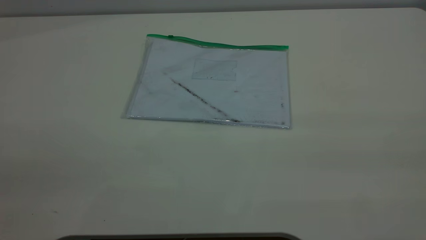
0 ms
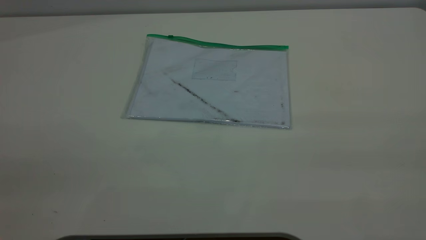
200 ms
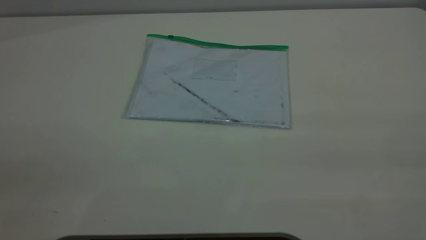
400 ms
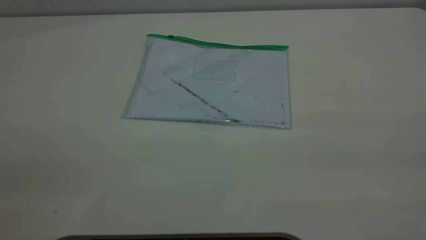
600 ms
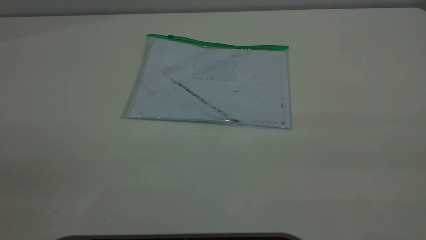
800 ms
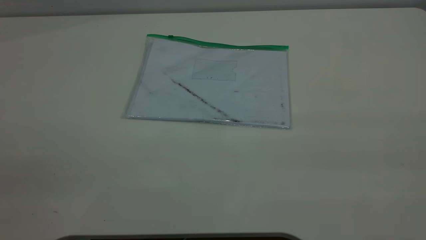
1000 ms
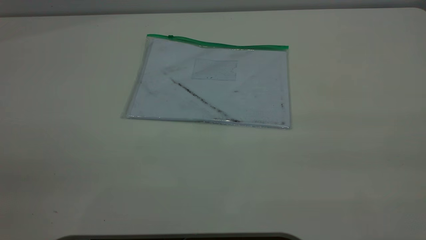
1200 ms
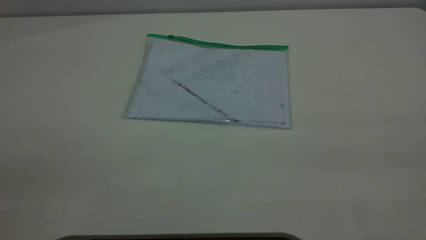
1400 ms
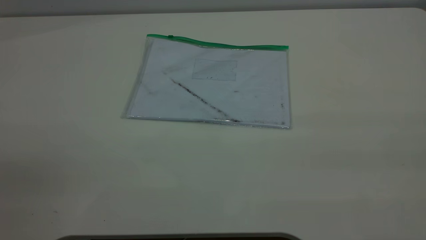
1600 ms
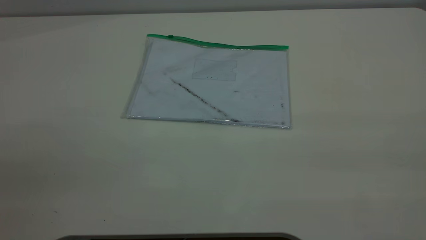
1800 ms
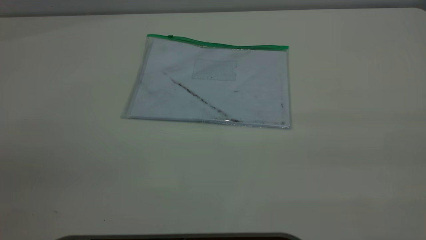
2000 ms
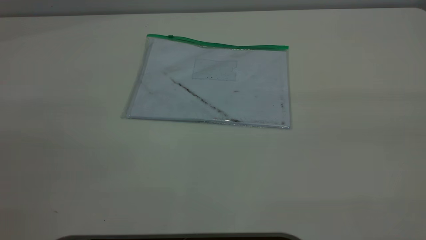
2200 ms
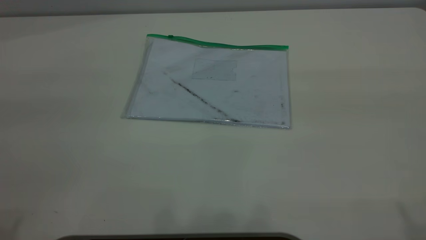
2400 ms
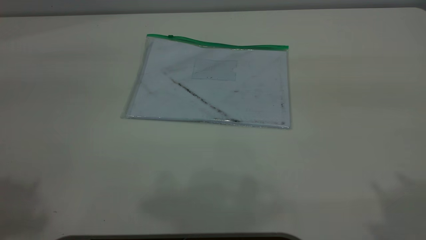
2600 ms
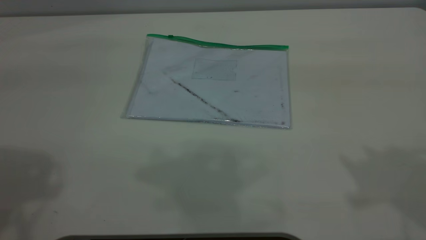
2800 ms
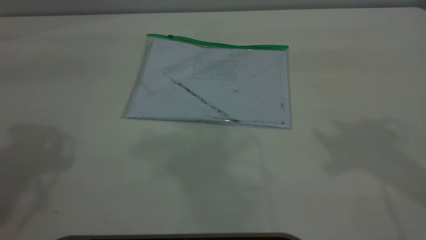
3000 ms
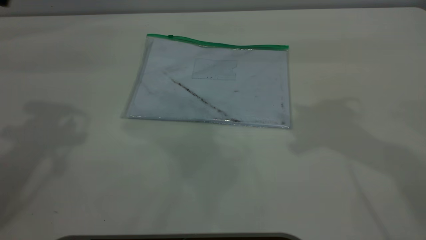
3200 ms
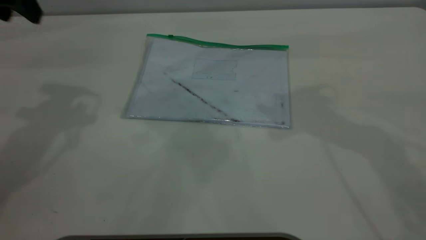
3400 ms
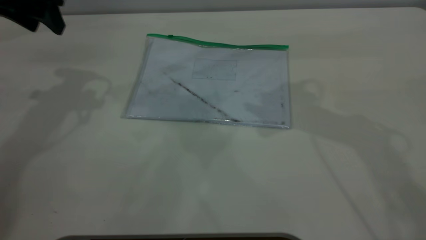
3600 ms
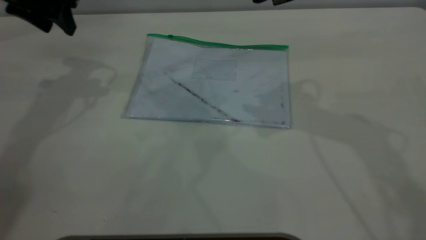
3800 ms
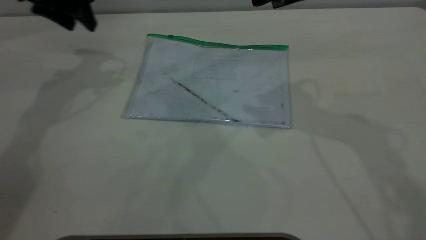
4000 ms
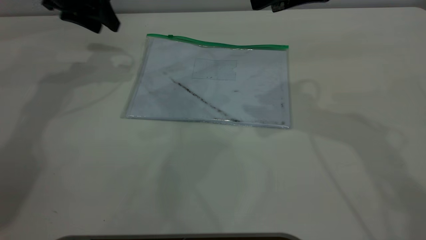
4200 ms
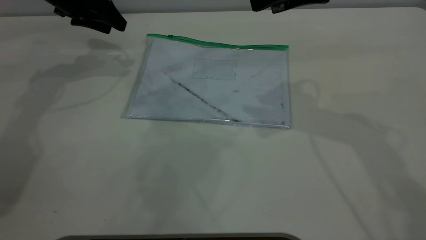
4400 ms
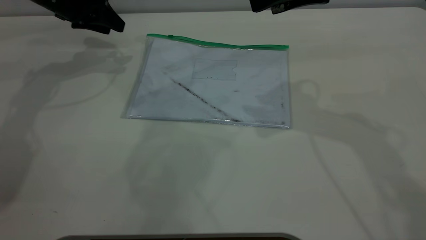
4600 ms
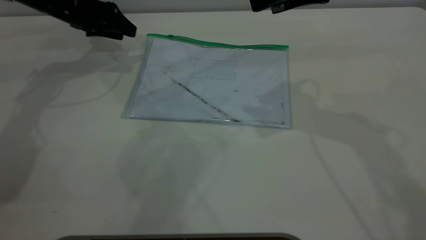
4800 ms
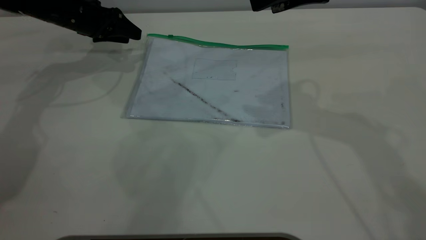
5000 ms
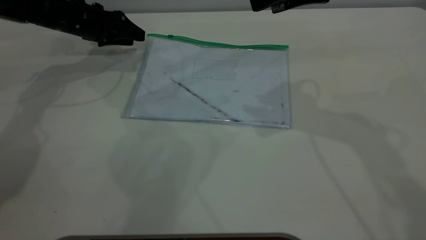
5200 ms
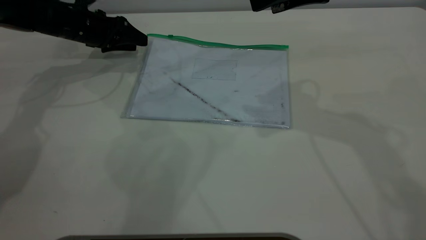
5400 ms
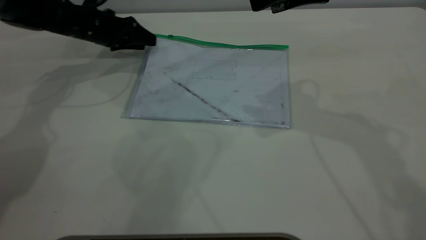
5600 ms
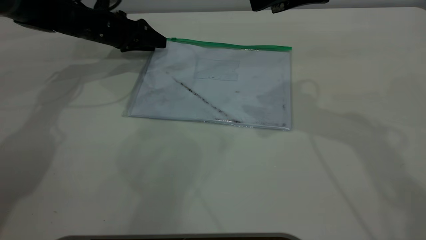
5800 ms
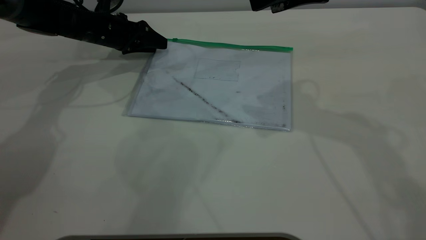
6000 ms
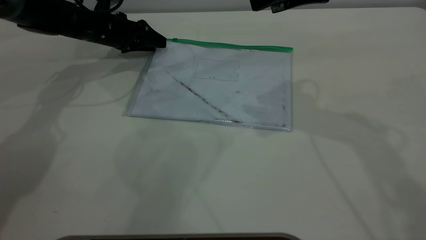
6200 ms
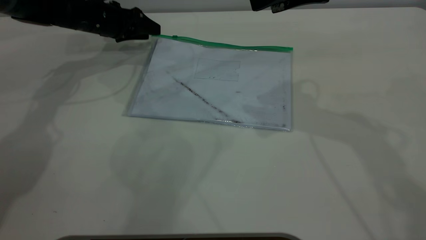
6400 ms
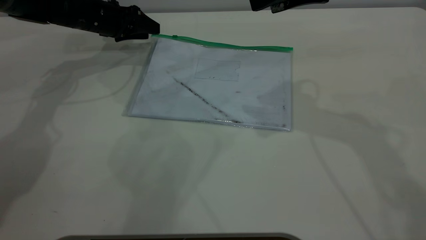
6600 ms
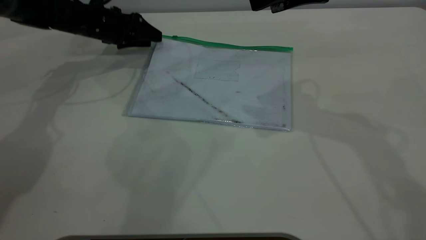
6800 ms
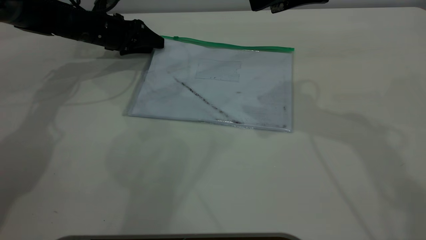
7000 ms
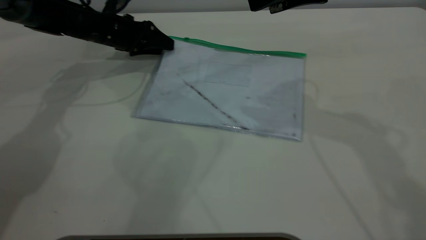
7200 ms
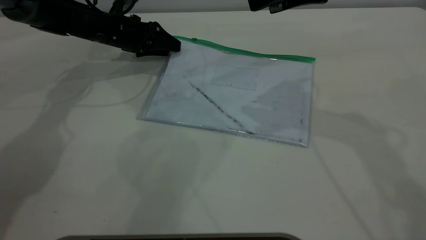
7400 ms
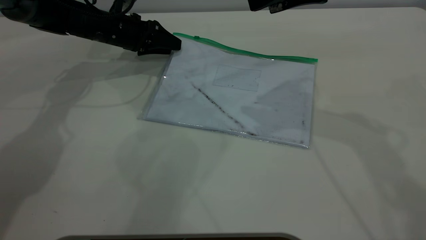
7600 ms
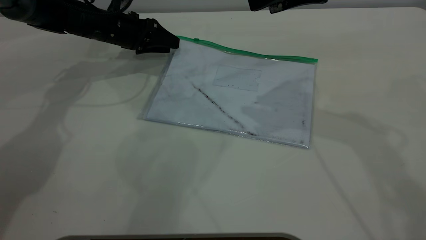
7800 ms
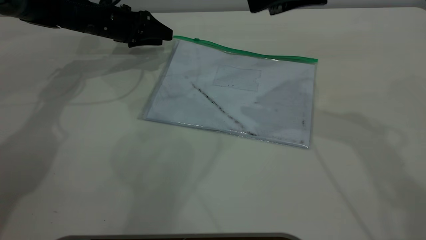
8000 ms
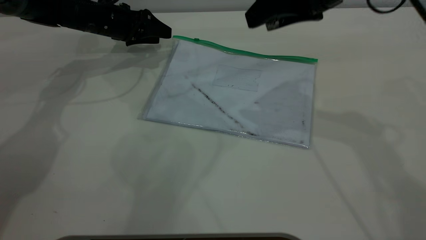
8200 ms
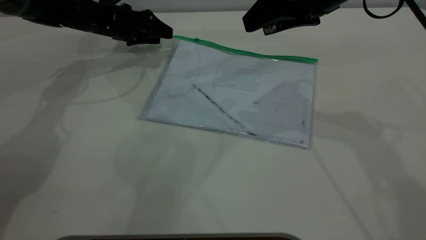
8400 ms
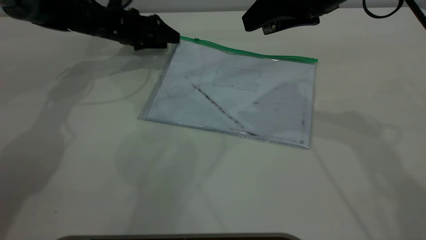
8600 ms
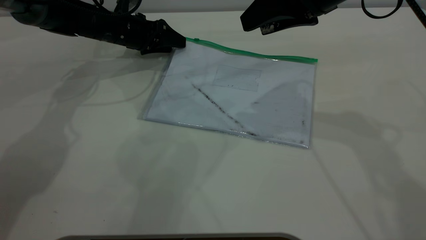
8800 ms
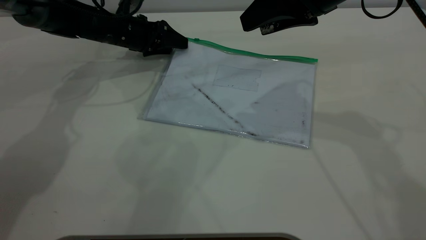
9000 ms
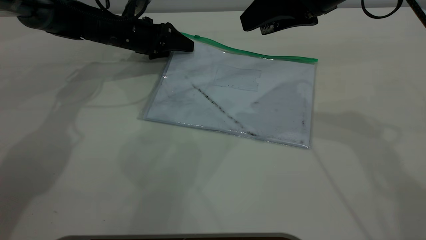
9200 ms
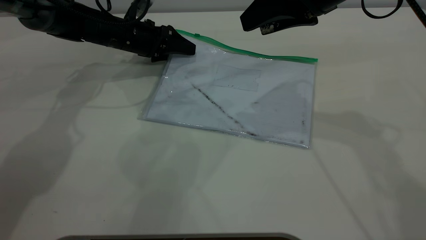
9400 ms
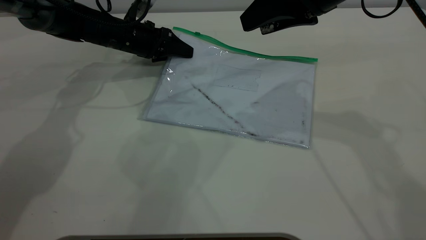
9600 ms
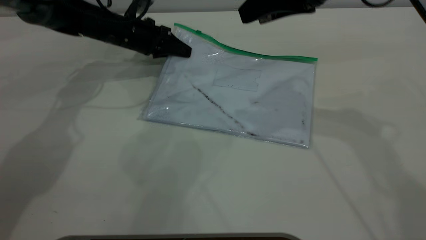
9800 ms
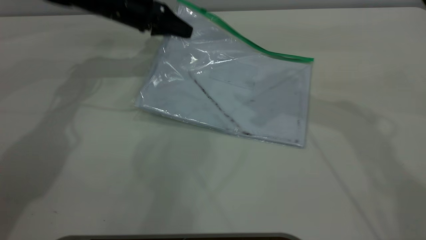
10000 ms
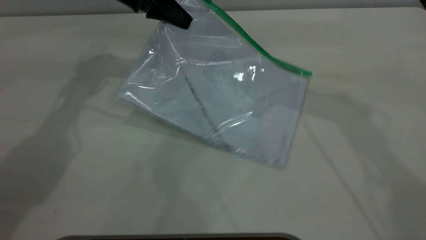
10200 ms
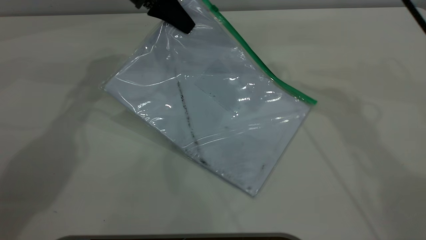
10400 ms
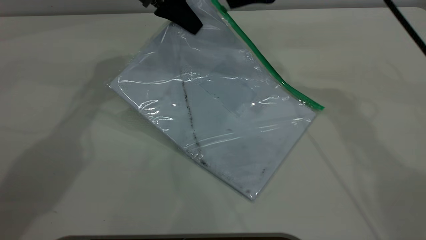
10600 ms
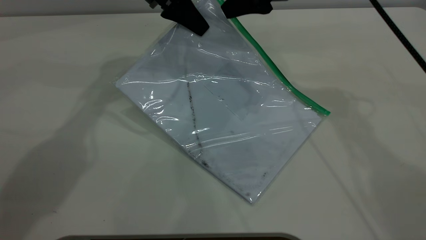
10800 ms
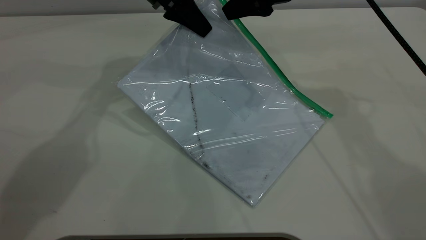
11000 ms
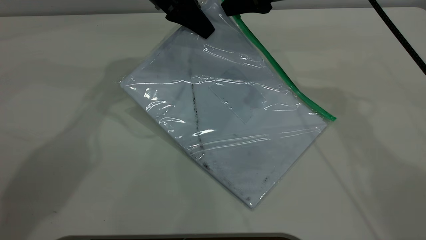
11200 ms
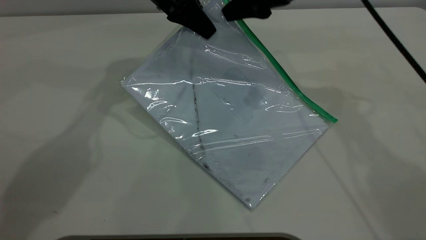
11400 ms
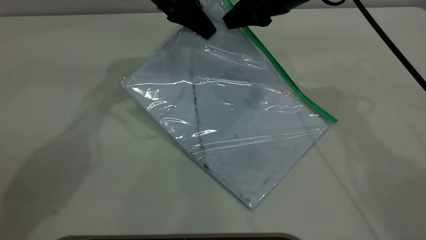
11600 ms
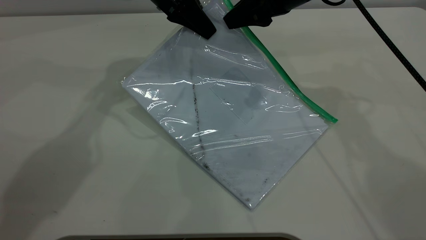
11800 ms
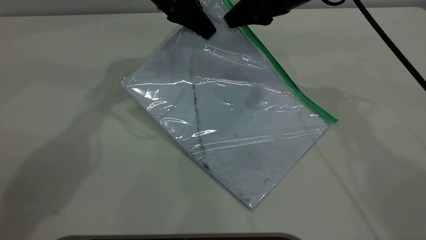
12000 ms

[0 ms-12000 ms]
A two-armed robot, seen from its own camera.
Step, 0 ms to 10000 ms: Pick up the transparent plastic bag with the left gripper.
0 ms to 1600 ms: Both grippers stay about where they are.
3000 ms to 4400 ms: The left gripper shifts approximately 30 cm forward and downward; the right gripper shifts roughly 15 cm forward, to the left and downward.
4400 ms to 6000 ms: The left gripper moves downward, some 10 cm.
6000 ms to 9000 ms: The grippers stay close to where they were, moving slightly.
9000 ms to 10400 ms: The right gripper moves forward, about 5 cm; the left gripper moves upward and to the right, roughly 15 cm, and closes up.
10400 ms to 12000 ms: The right gripper is displaced downward by about 5 cm, and closes up.

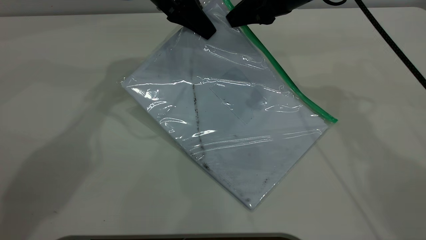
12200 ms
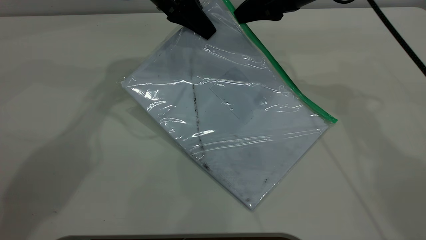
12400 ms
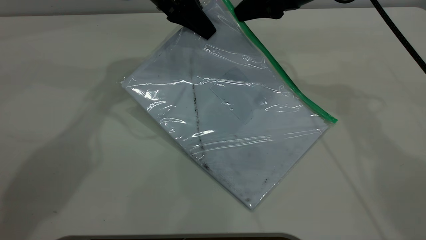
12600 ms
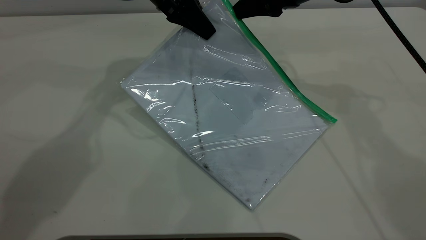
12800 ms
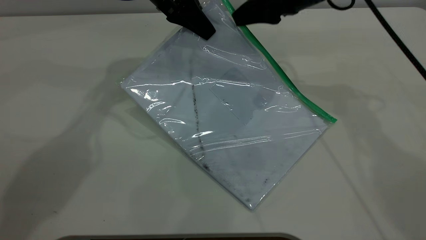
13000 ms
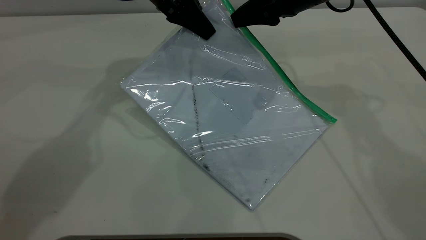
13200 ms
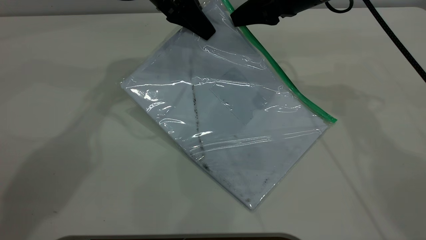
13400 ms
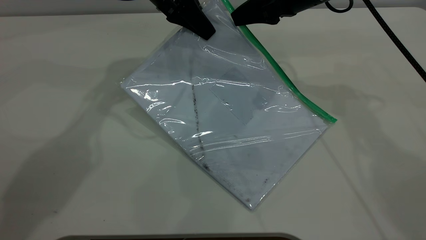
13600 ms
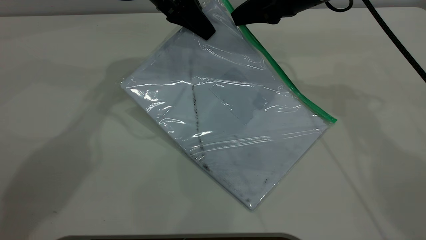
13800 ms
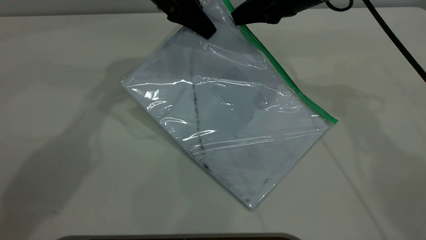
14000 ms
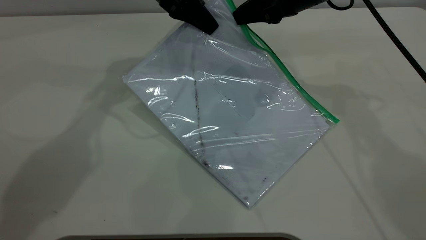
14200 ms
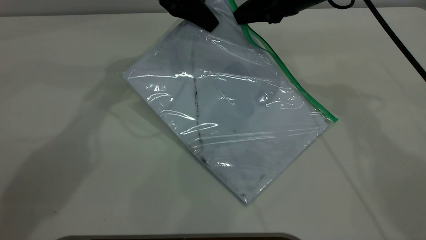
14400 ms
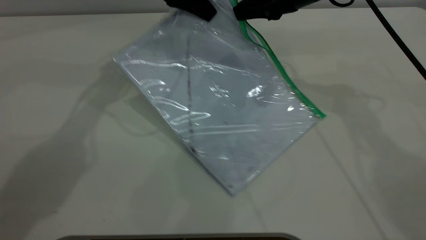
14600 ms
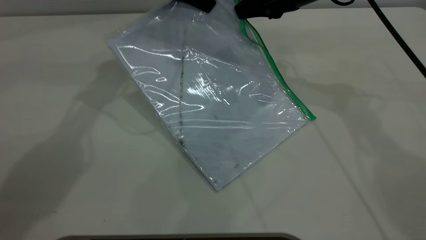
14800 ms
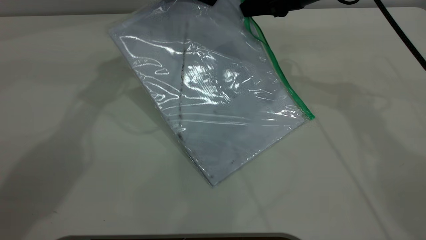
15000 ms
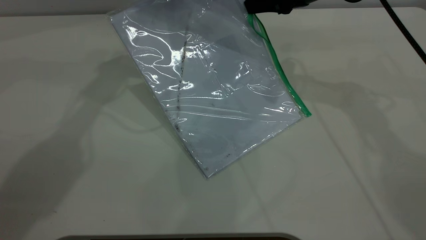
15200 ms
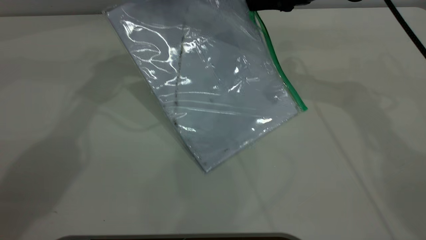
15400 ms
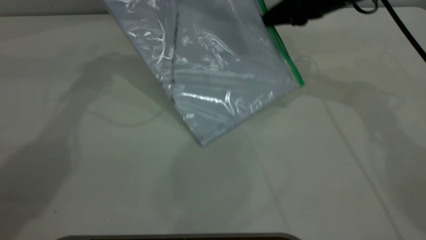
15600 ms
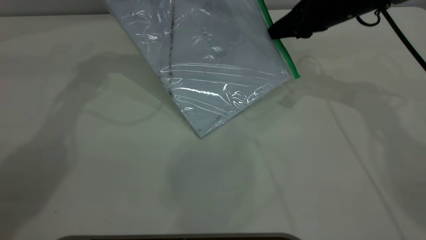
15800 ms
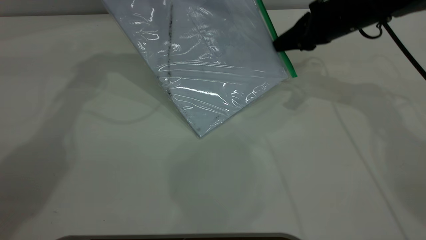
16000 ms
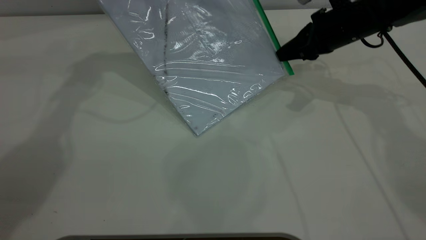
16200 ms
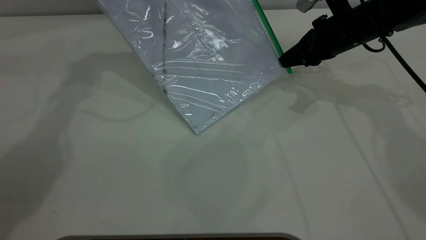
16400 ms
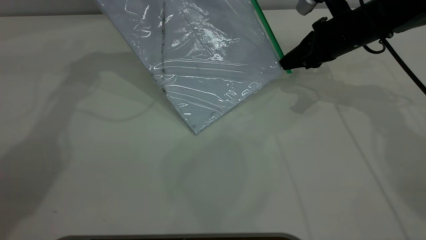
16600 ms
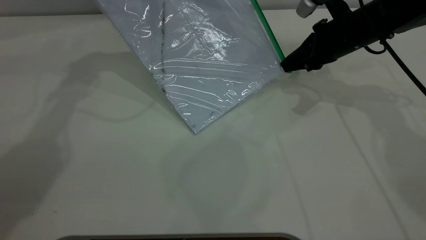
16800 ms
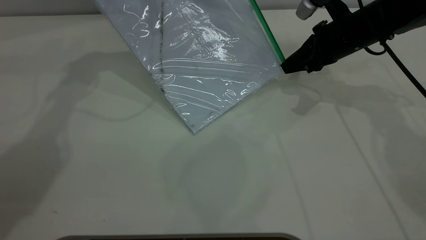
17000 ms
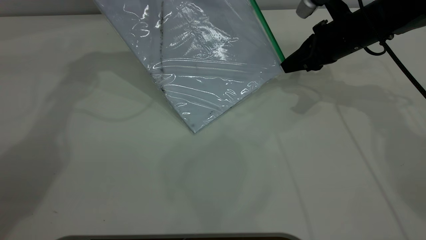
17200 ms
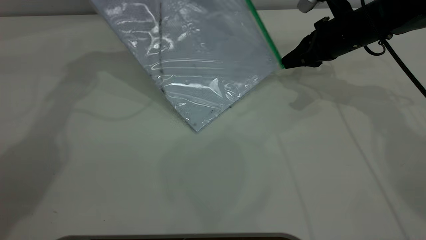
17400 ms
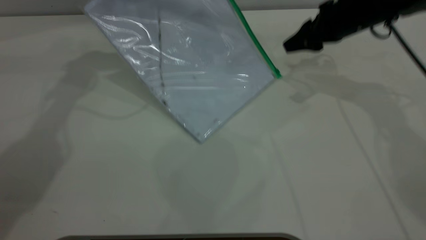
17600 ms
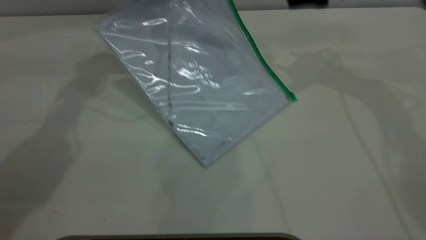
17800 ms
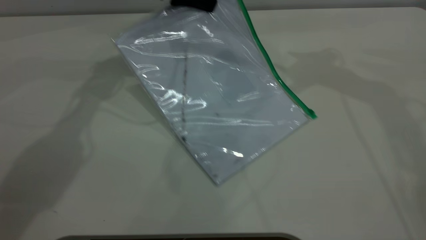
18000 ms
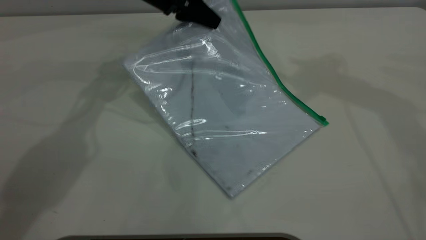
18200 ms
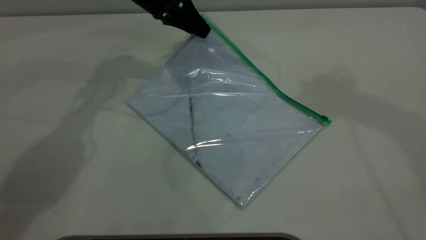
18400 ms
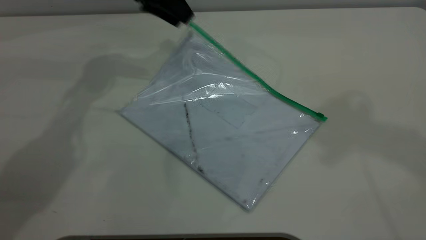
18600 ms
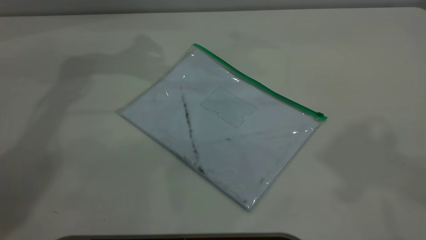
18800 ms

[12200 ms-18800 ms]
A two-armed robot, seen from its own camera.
Step, 12200 ms to 17400 ms: Pulling up the zipper on the transparent plastic bag with the right gripper to close it.
Step, 17600 ms to 18600 ms: Place the transparent plastic bag.
12200 ms to 13800 ms: The grippers stay close to where they were, moving slightly.
13800 ms to 15400 ms: The left gripper shifts by approximately 5 cm.
15400 ms to 17200 ms: The right gripper travels downward by some 10 cm, while the left gripper moves approximately 5 cm.
17200 ms to 18800 ms: The left gripper moves some 10 cm downward and comes back, and opens. Meanwhile the right gripper travels upward and backward by approximately 50 cm, and opens its fingers.
